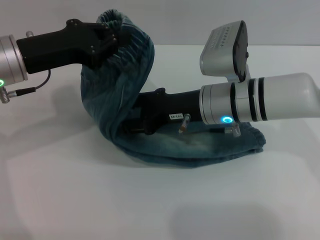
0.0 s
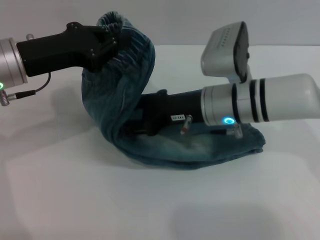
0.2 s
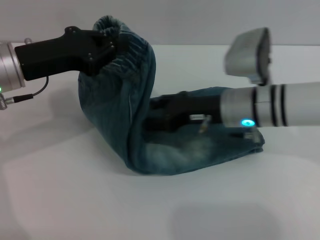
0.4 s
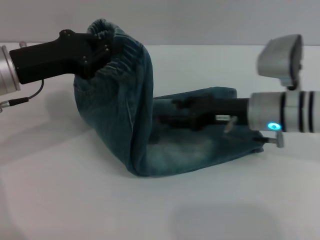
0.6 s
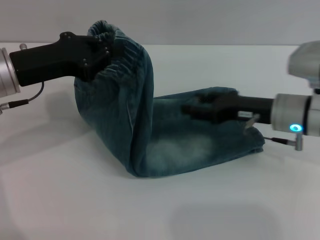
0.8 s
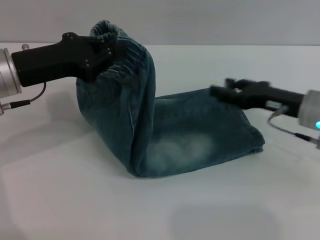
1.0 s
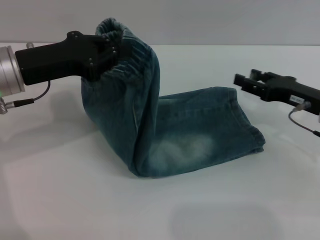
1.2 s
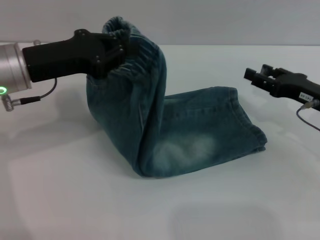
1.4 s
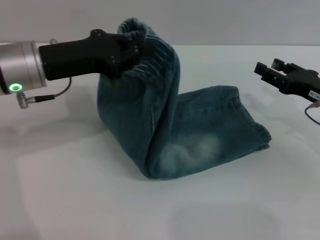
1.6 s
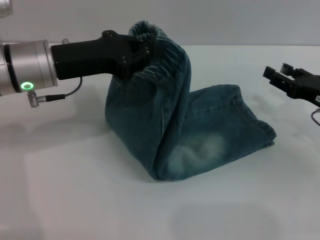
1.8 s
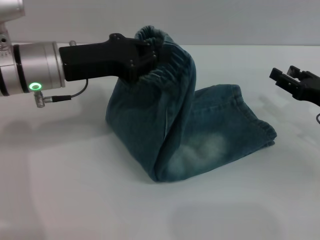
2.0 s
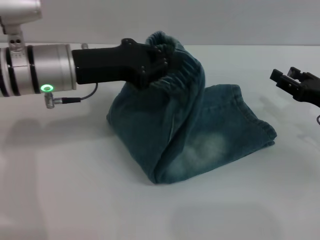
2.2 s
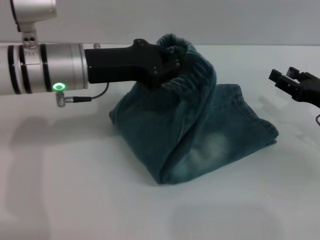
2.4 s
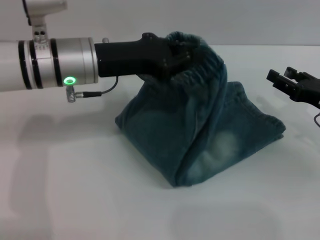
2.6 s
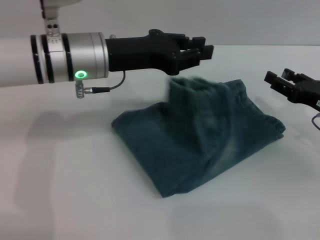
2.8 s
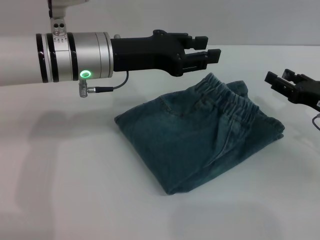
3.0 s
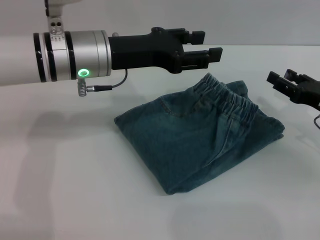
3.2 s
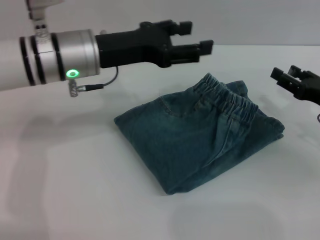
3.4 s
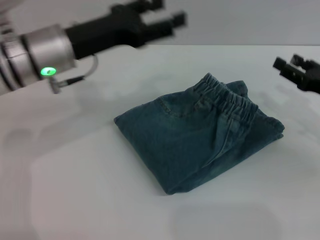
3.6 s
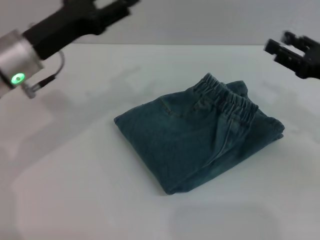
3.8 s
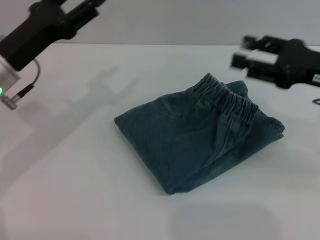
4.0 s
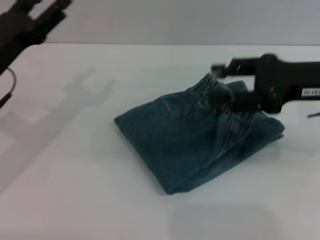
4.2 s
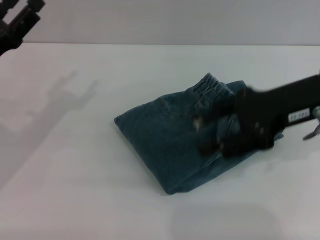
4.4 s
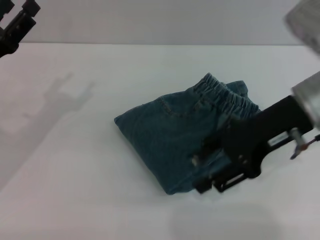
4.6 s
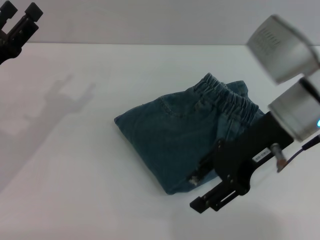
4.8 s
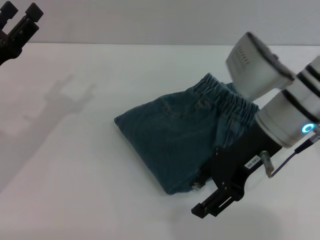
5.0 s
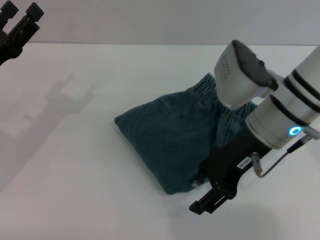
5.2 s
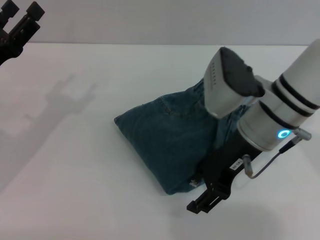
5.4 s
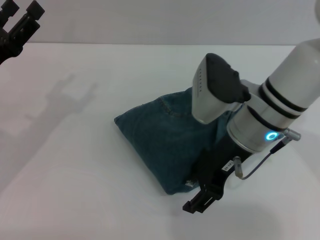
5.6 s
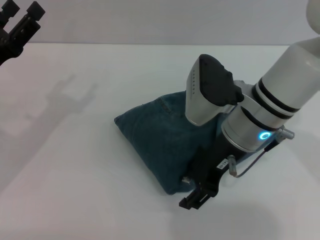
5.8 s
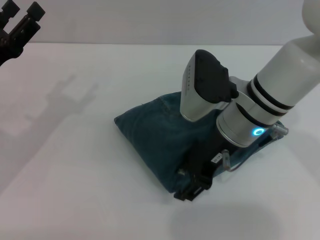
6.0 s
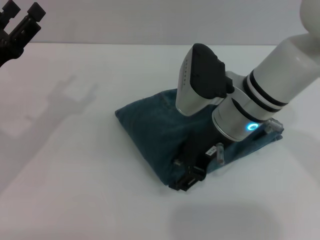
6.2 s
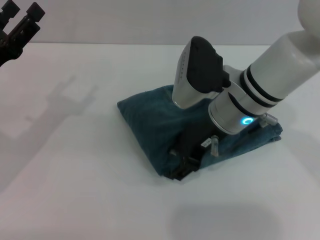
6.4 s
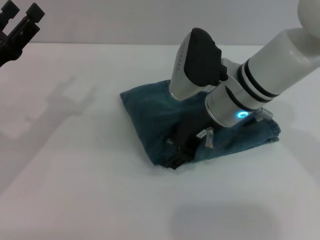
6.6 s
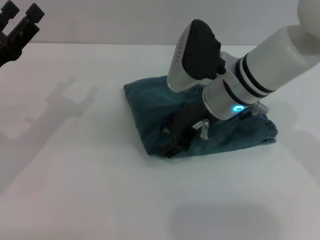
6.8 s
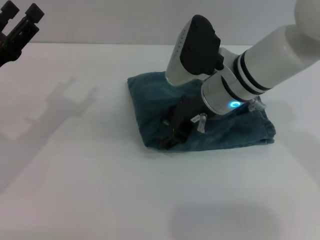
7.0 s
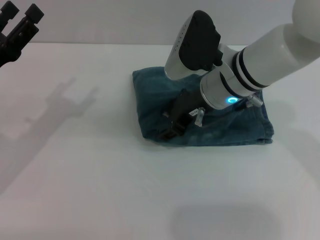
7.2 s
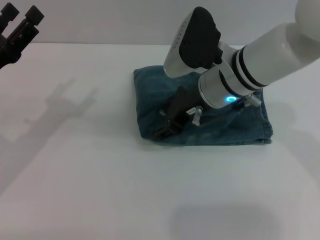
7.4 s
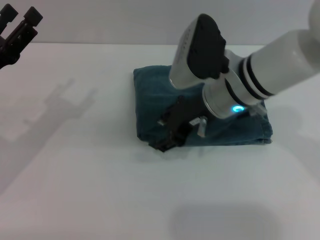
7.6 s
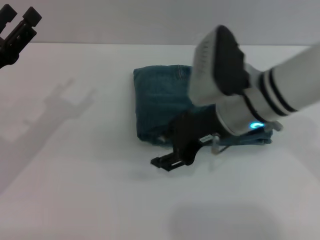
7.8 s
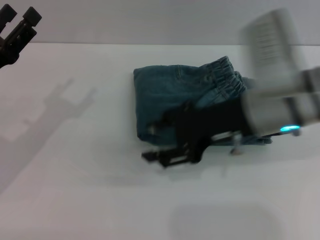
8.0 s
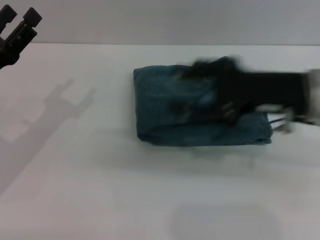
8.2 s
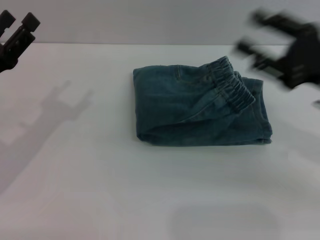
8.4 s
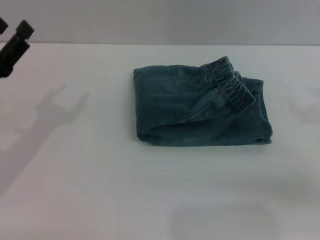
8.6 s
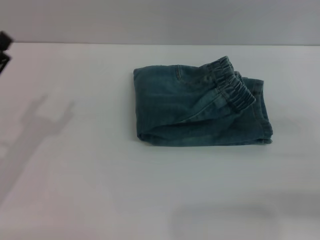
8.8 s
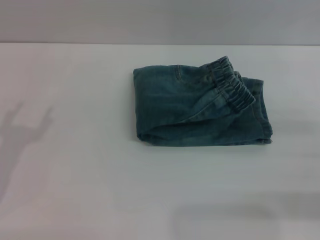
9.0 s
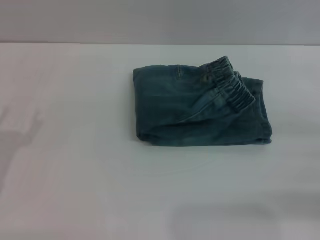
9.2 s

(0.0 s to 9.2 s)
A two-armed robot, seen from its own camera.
Step, 0.0 s - 3.0 s: Fold the pants from left to right with the left gripper.
Step, 3.2 s - 7.8 s: Place the folded trousers onto the center area with the right grippers.
0.0 s - 1.6 s: The right gripper is displaced to the right by roughly 20 cm.
1.6 s - 3.0 s: The left gripper moves to the right, roughly 10 cm.
3.0 s - 4.6 s: The left gripper is displaced to the left and backward by about 20 cm, and opens; the right gripper goes roughly 20 cm upward and to the left.
4.6 s - 6.2 s: The right gripper goes roughly 10 cm to the left and downward.
6.2 s - 7.6 s: There are only small adjustments of the grippers.
7.6 s - 9.2 s: The right gripper is displaced to the right and backward by some 30 cm. The left gripper moves backward, about 10 cm.

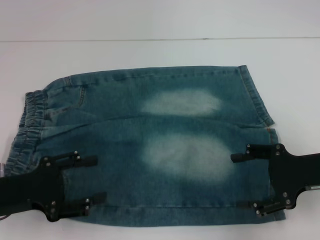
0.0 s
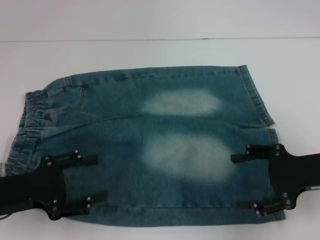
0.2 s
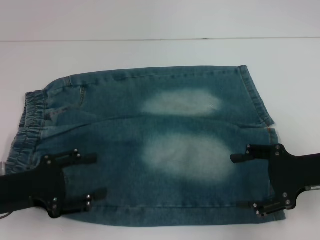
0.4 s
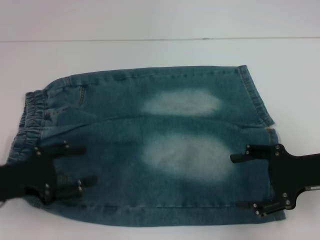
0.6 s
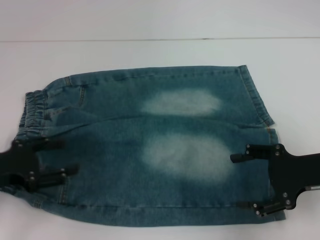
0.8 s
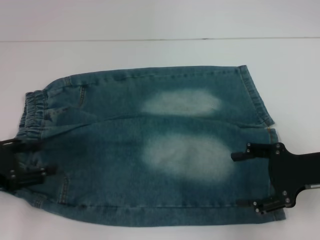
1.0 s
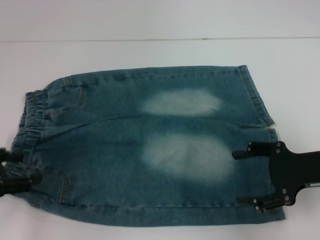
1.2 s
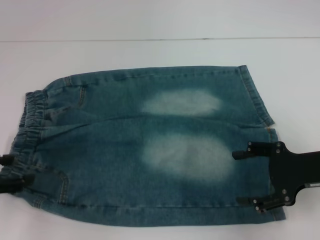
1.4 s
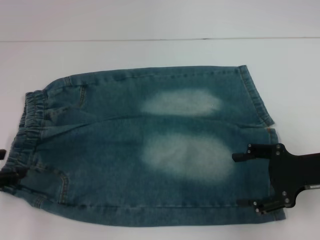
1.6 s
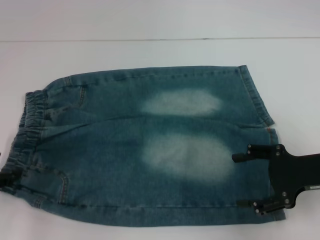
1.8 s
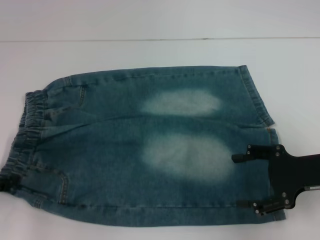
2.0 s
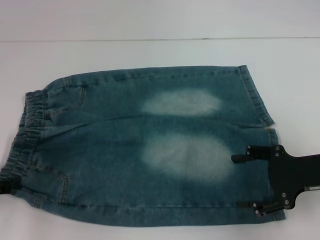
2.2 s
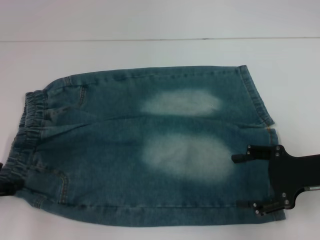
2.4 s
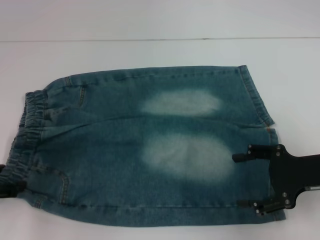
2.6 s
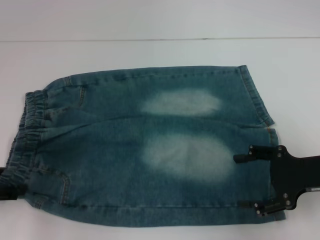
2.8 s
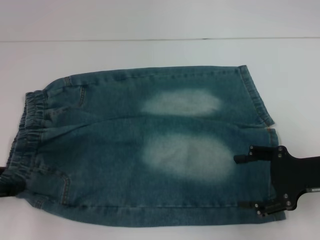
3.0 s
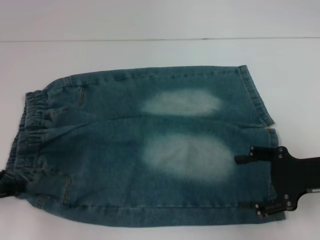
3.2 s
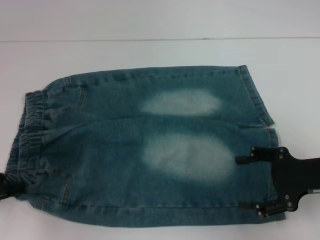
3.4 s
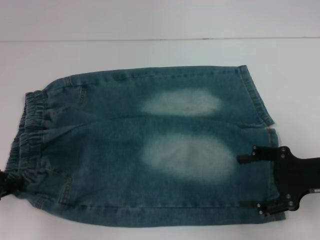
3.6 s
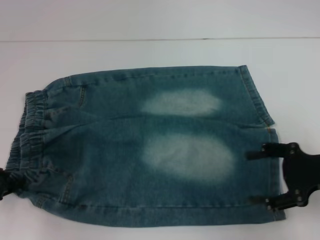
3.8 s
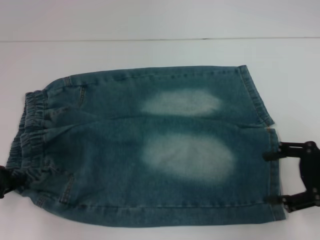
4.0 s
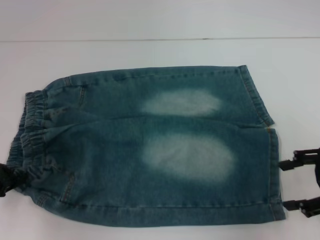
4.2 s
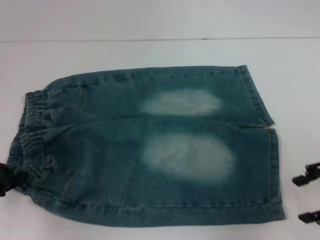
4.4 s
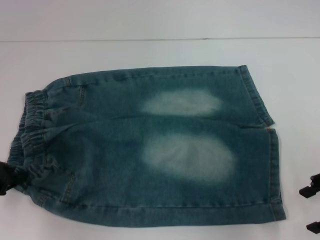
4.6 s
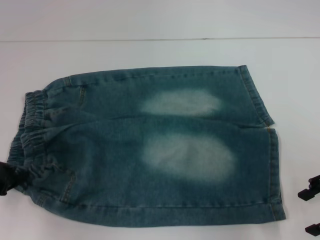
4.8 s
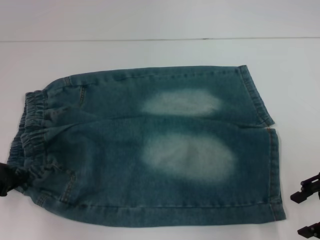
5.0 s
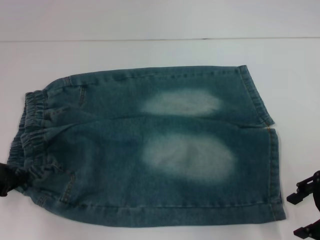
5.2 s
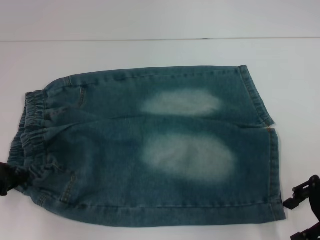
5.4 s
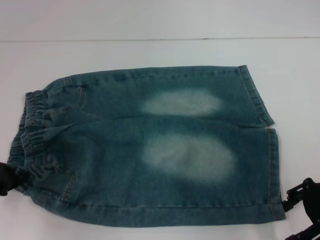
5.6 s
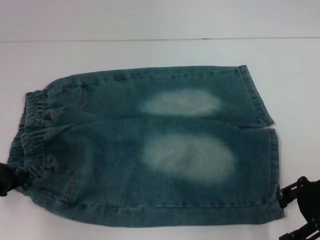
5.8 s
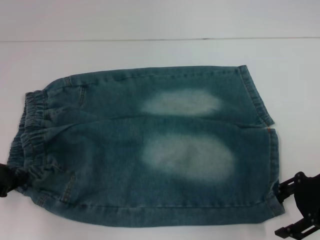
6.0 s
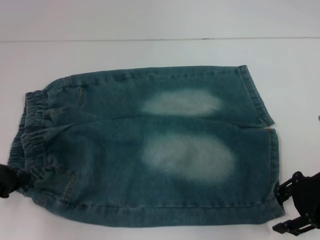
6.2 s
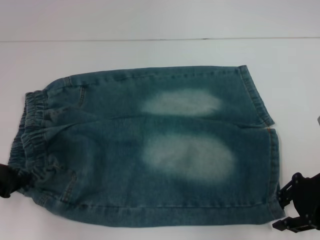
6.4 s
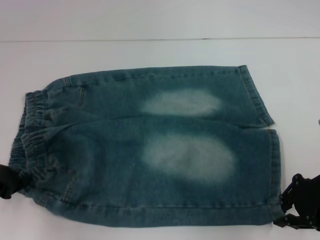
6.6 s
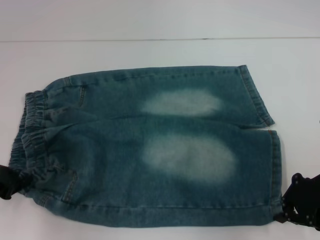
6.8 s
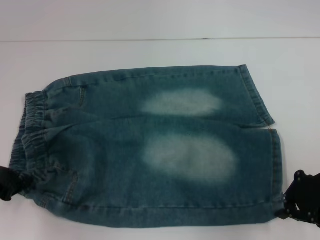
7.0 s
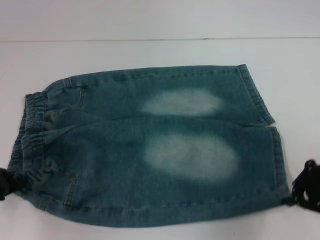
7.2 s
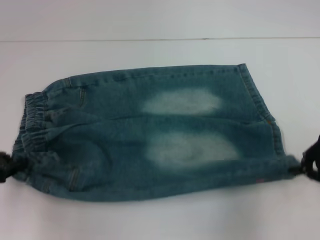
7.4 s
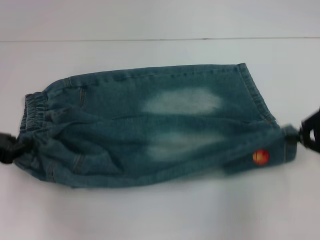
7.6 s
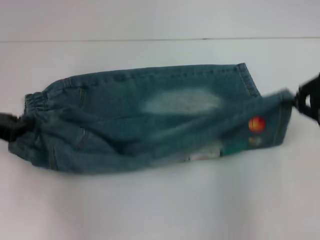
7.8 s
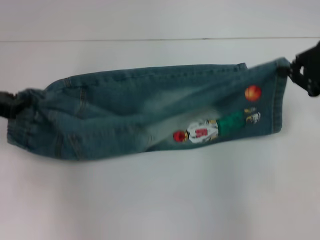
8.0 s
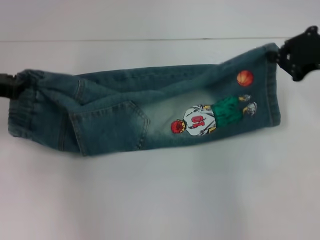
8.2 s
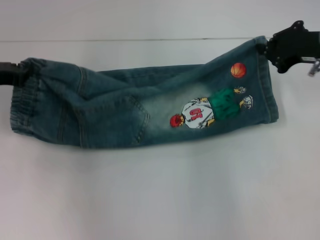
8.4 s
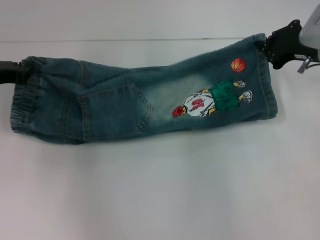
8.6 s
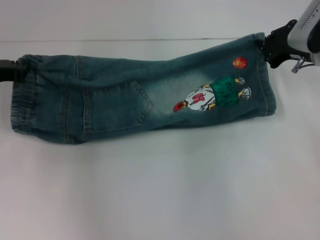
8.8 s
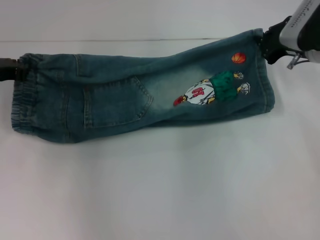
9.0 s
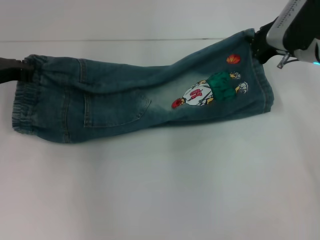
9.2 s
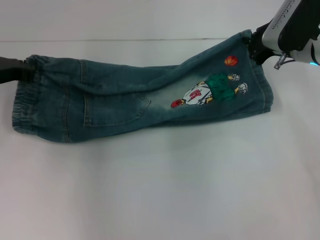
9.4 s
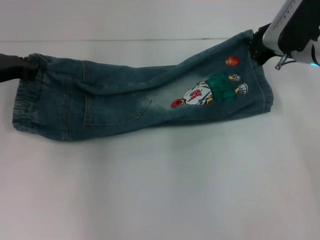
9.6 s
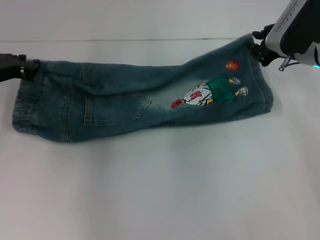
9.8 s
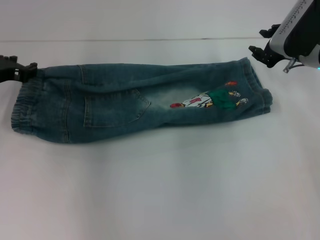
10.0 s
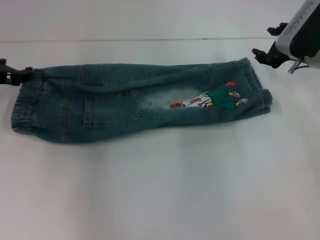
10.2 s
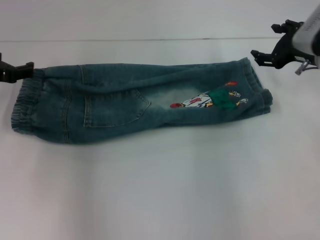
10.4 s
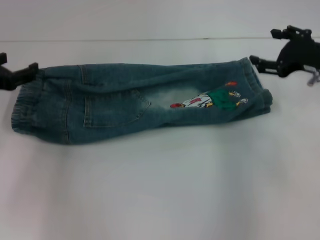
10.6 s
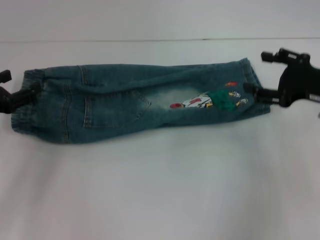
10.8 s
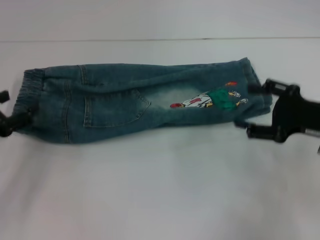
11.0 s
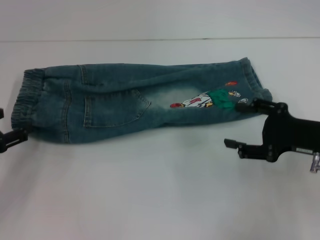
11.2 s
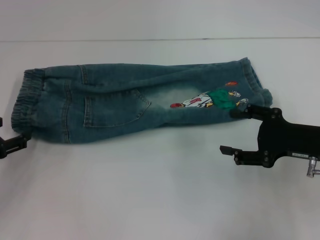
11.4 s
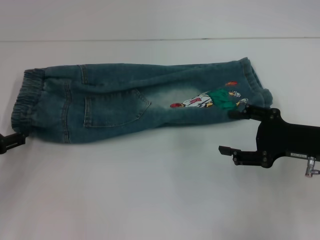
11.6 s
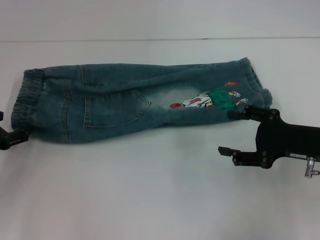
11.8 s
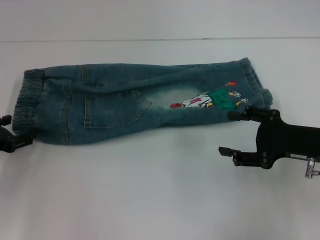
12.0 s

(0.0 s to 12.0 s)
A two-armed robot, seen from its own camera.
Step, 0.0 s - 3.2 s: Hold the lower left waistband with your left hand.
Step, 3.6 s - 6.8 s: Grab the lower right pant leg with your right hand.
Step, 7.0 s - 9.8 s: Fold upward with your right hand.
0.0 s - 1.6 s: The left gripper shifts about 5 cm to the left.
1.6 s - 3.0 s: The grippers move only a little.
3.0 s - 4.4 s: The right gripper moves upward, approximately 5 cm. Meanwhile the left gripper closes up.
4.4 s - 6.0 s: The right gripper moves approximately 5 cm.
6.0 s - 7.6 s: The right gripper changes place by some 5 cm, and closes its fingers.
7.6 s - 9.0 s: The right gripper is displaced forward and to the left by roughly 15 cm; the left gripper travels forward by about 10 cm.
9.0 s - 10.4 s: The right gripper opens its fingers, while the left gripper opens up.
10.4 s - 12.0 s: The right gripper is displaced backward by roughly 15 cm. The left gripper travels backward and downward by some 10 cm.

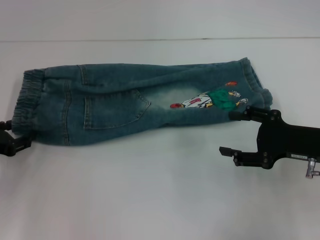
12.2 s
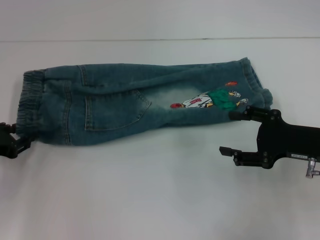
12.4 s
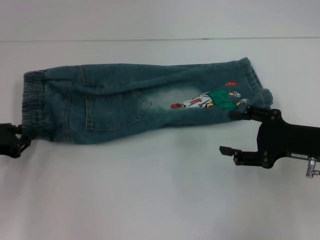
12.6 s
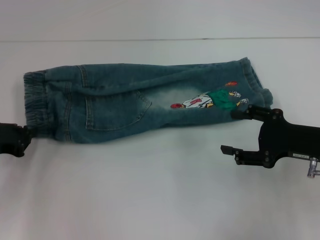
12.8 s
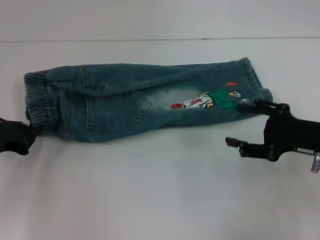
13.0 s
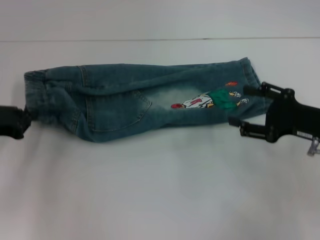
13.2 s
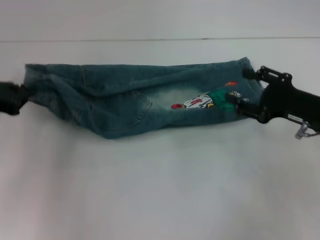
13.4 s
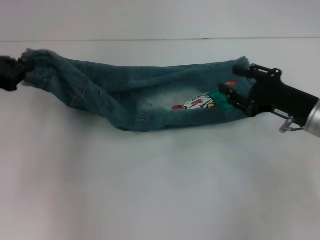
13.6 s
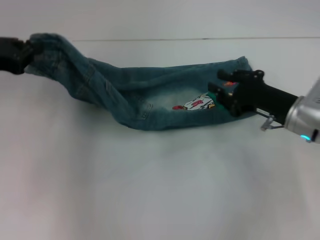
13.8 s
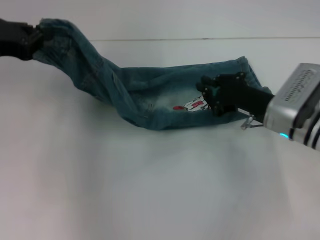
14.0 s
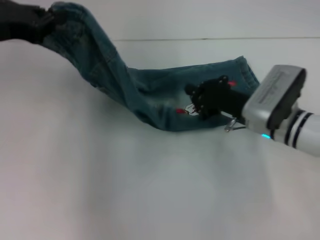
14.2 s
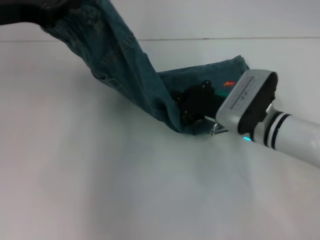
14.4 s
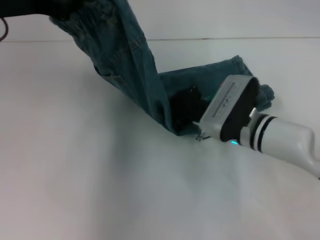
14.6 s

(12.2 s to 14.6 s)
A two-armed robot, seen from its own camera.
12.2 s - 13.4 s: The left gripper goes roughly 10 cm upward, and closes up.
13.4 s - 14.6 s: The right gripper travels to the left by approximately 15 cm, and closes its fingers; the left gripper moves upward and to the right, approximately 15 cm.
